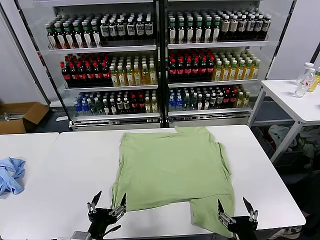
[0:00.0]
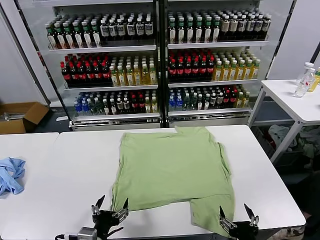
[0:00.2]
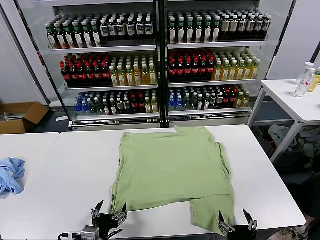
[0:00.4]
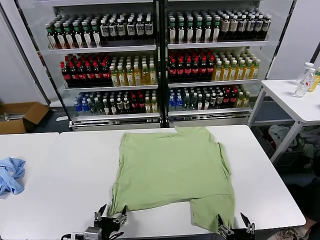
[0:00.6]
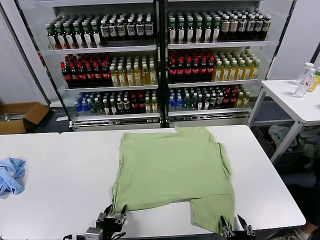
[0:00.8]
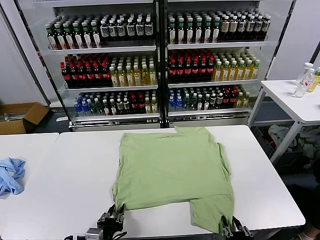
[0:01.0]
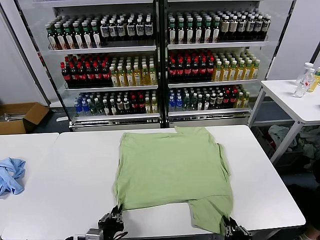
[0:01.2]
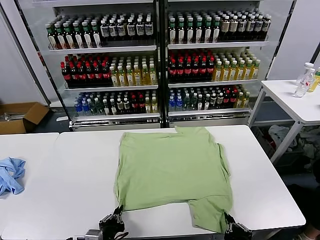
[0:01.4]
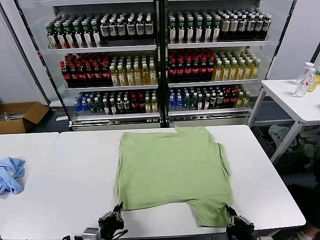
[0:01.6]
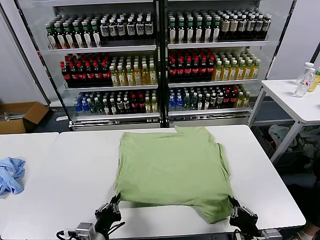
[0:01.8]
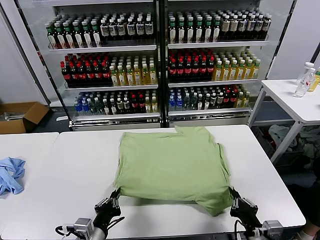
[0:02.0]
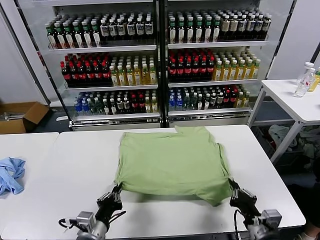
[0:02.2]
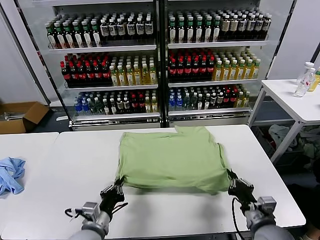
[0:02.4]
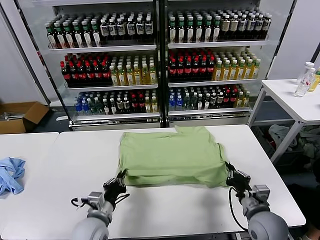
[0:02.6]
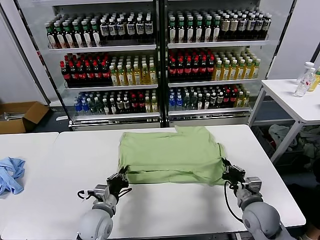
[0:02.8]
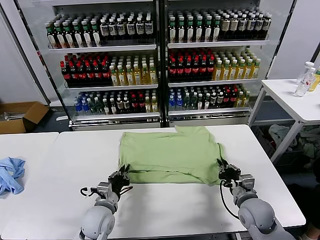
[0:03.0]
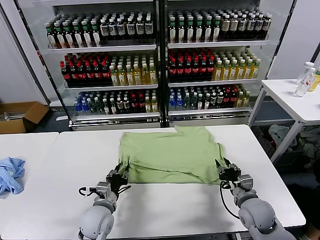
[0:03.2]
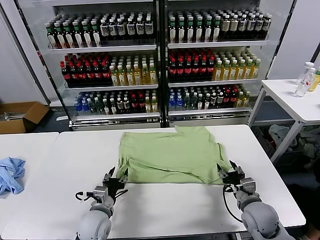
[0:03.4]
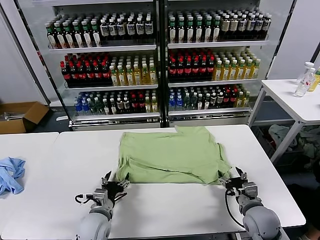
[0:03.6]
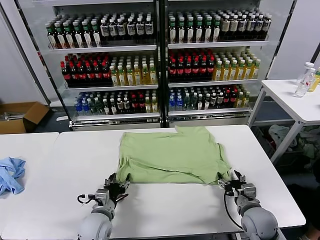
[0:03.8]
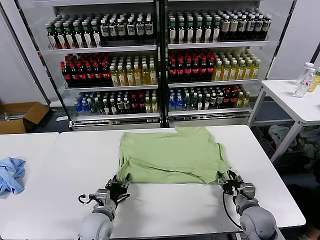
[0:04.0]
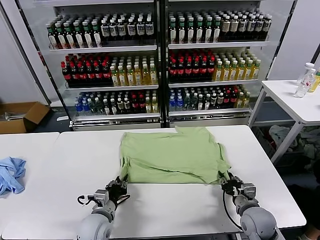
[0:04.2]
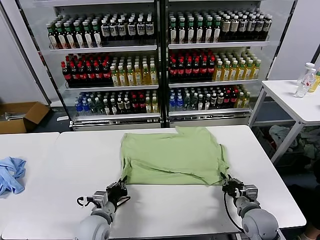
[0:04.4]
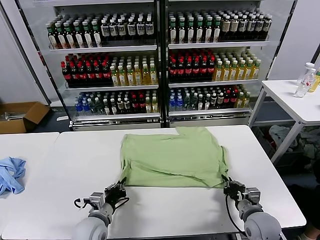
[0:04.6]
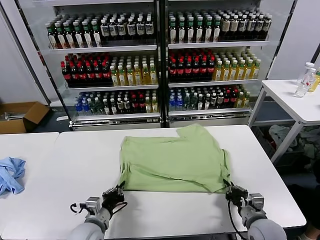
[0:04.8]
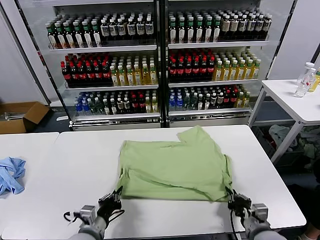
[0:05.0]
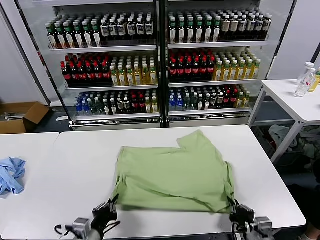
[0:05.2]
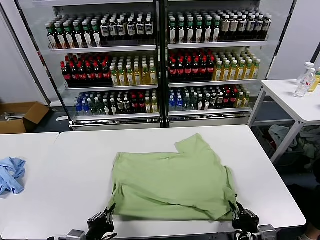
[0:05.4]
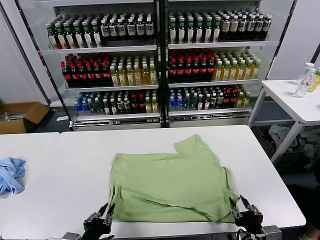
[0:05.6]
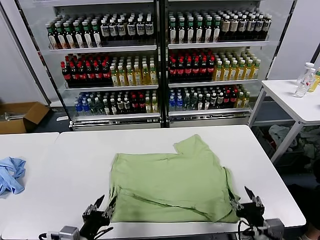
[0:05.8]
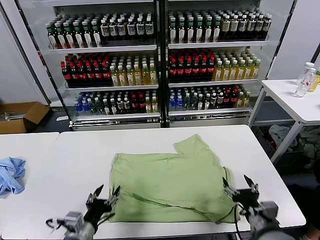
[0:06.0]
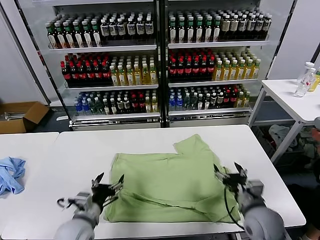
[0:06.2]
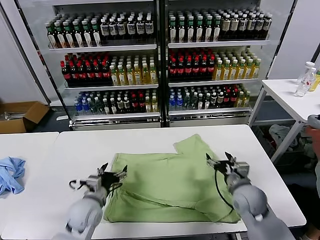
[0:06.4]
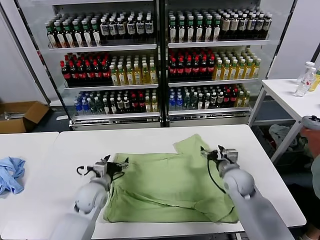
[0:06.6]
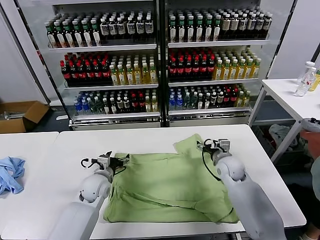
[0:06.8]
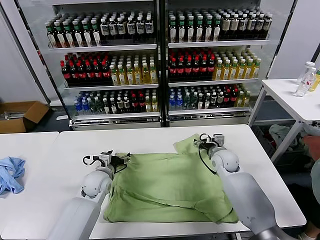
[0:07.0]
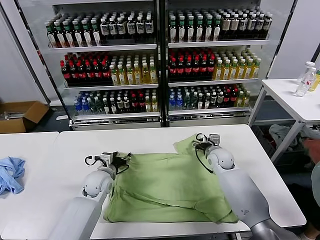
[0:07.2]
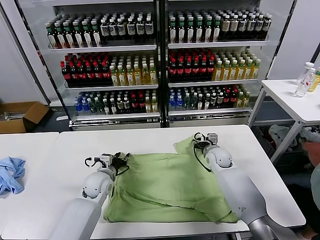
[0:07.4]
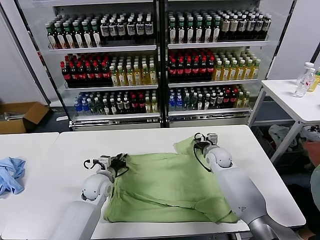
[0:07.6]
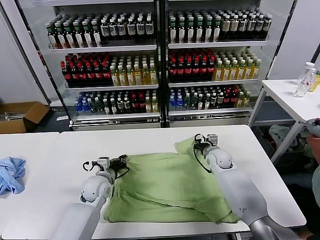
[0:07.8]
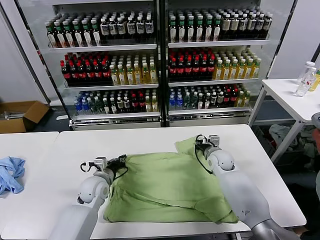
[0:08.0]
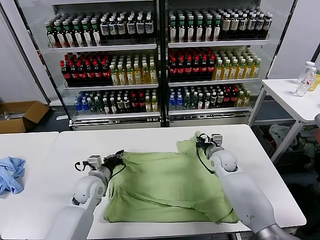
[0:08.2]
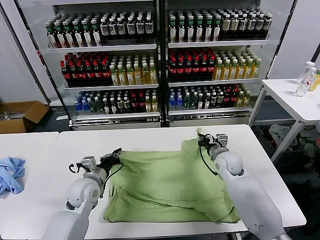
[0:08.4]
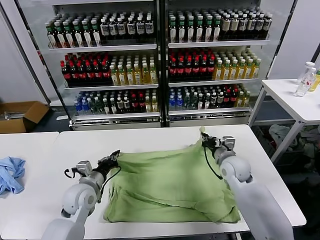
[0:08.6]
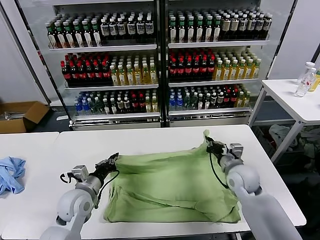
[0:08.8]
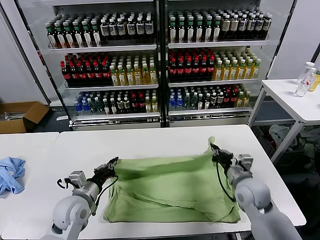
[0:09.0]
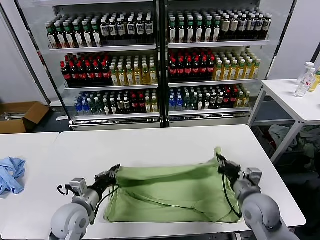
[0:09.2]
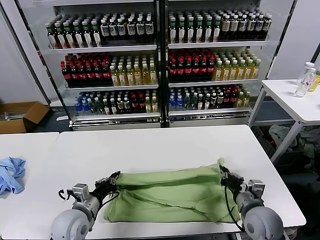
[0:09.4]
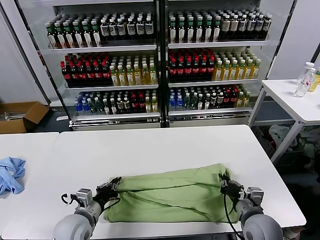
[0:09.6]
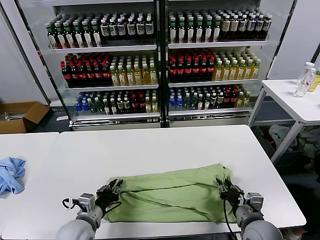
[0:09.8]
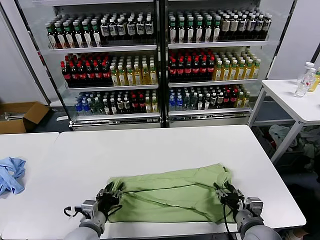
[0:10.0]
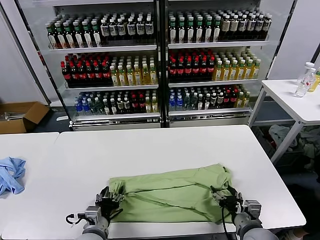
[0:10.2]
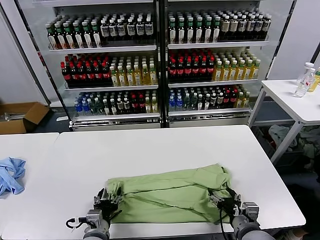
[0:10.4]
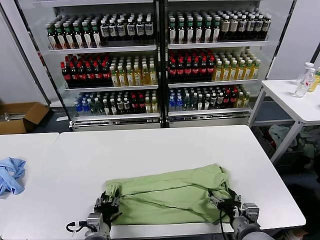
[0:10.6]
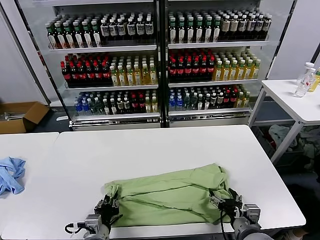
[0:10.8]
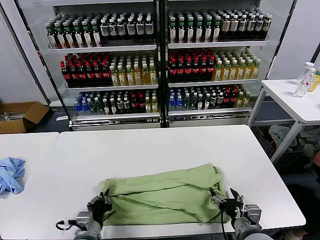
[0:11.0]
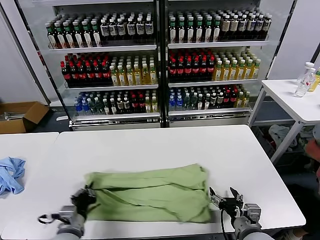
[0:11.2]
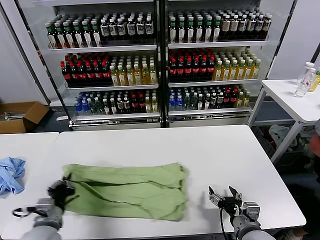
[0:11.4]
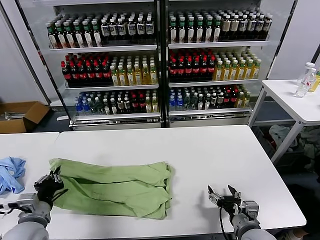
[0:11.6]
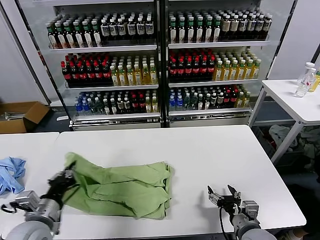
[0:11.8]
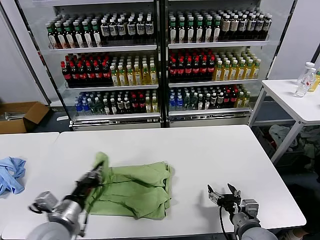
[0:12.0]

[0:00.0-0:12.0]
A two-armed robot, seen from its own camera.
Task of the whole recording: fold and organize the clothes.
Step, 0:00.0 to 0:01.4: use both grippers simultaneously to clamp the lower edge of the clothing fabric.
Step, 0:01.6 to 0:03.2: use both grippers to drag the lower edge of the fabric forward and fold it over the upper edge.
Step, 0:03.4 to 0:05.6: Drag the clothes downward with both gripper.
Step, 0:05.8 to 0:07.8: use both grippers simultaneously to clamp the upper edge of the clothing fabric.
Step, 0:08.0 to 0:09.8: use both grippers to drag the upper edge of the fabric backward and fold it over the lower edge.
Step, 0:10.0 to 0:10.8: use the left gripper to clamp the left edge of the fabric.
0:01.6 to 0:03.0: The two grippers go approximately 15 cm forward. The right gripper opens its fingers.
0:03.0 to 0:04.4: The right gripper closes its fingers, while the left gripper opens and closes again.
0:04.4 to 0:06.0: The left gripper moves backward and upward, about 10 cm, and opens up. Meanwhile the right gripper shifts roughly 5 cm upward, reaches approximately 15 cm backward, then returns, and opens up.
0:06.0 to 0:07.6: The grippers both shift forward by about 25 cm. The left gripper closes its fingers. Meanwhile the right gripper closes.
0:07.6 to 0:09.0: The left gripper moves backward and upward, about 10 cm. Meanwhile the right gripper shifts approximately 20 cm backward.
0:09.0 to 0:10.4: The left gripper goes about 15 cm backward, downward and to the right, and opens, while the right gripper travels backward by some 10 cm, and opens up.
0:10.4 to 0:12.0: The left gripper travels upward and to the left by approximately 15 cm, and closes.

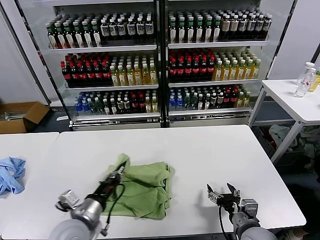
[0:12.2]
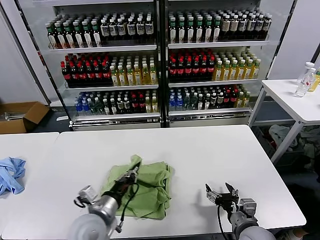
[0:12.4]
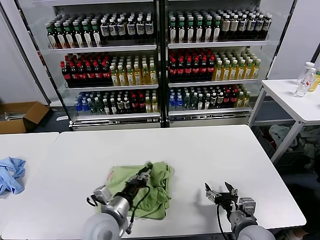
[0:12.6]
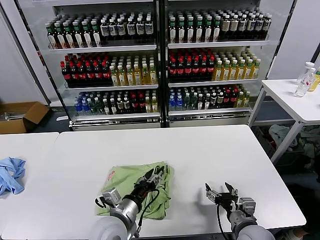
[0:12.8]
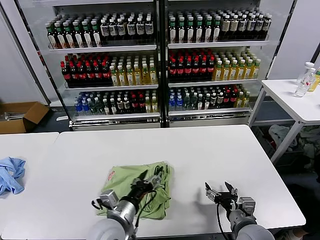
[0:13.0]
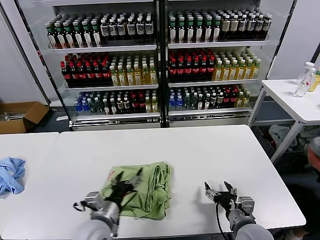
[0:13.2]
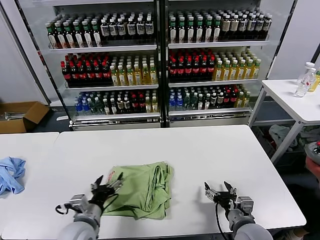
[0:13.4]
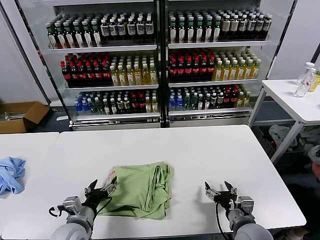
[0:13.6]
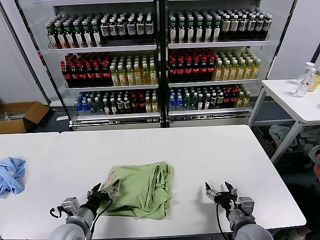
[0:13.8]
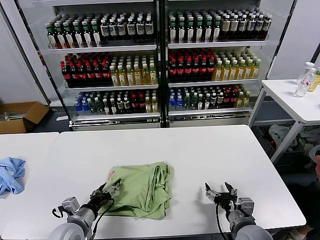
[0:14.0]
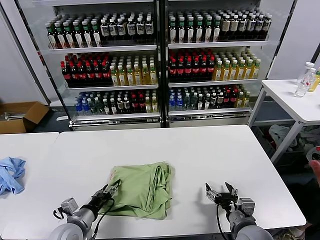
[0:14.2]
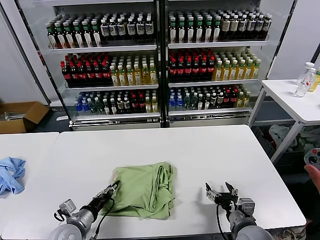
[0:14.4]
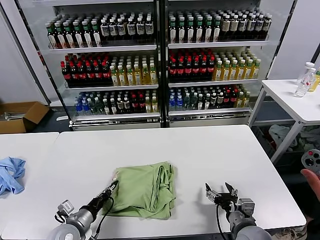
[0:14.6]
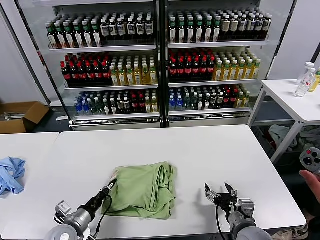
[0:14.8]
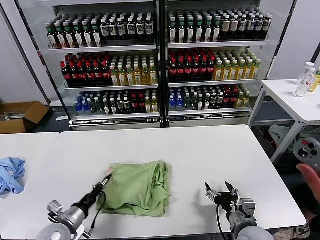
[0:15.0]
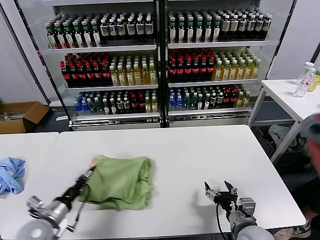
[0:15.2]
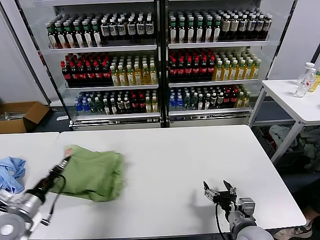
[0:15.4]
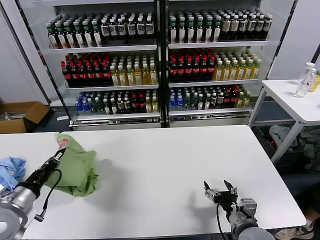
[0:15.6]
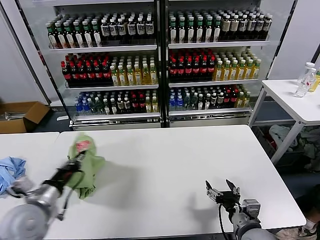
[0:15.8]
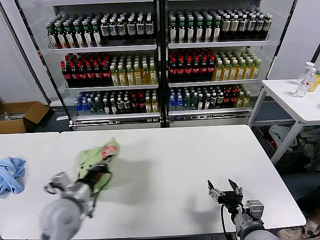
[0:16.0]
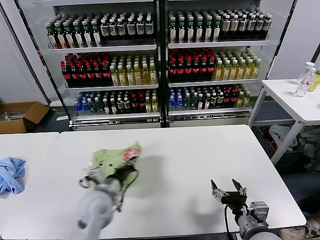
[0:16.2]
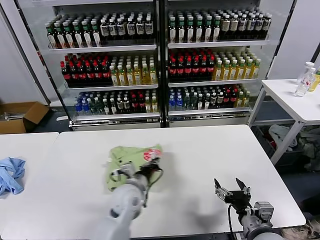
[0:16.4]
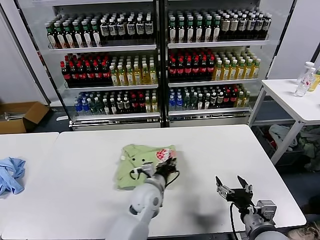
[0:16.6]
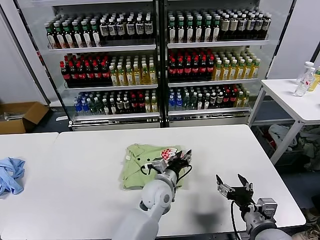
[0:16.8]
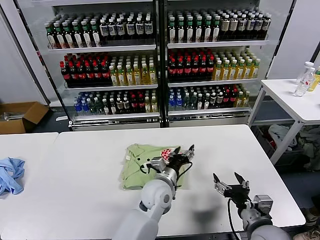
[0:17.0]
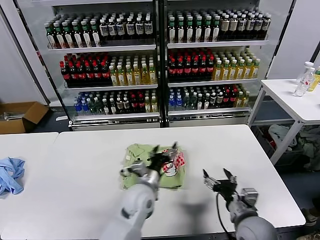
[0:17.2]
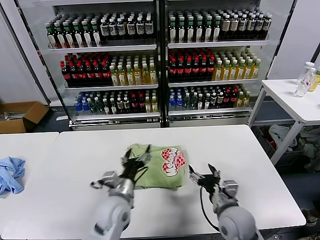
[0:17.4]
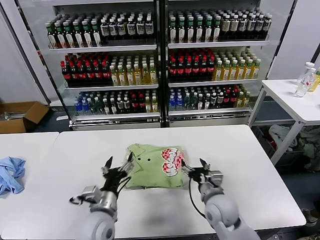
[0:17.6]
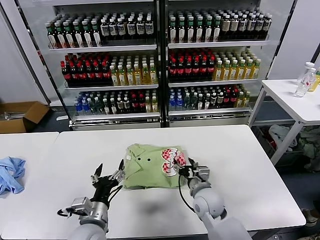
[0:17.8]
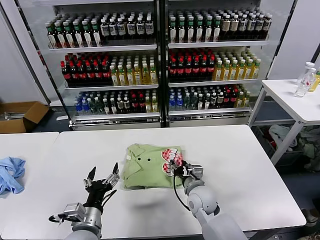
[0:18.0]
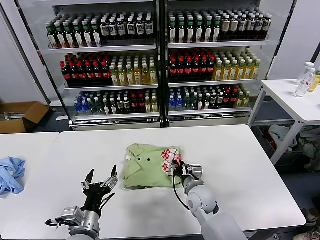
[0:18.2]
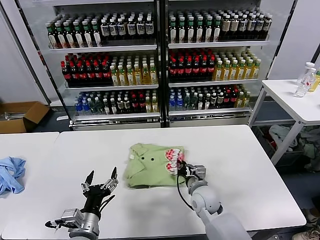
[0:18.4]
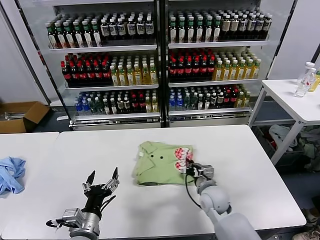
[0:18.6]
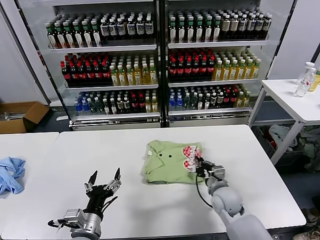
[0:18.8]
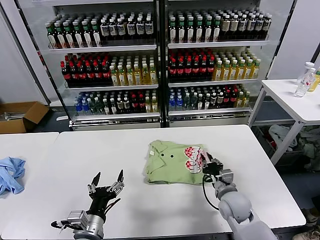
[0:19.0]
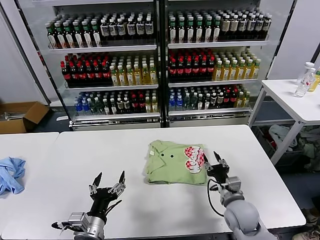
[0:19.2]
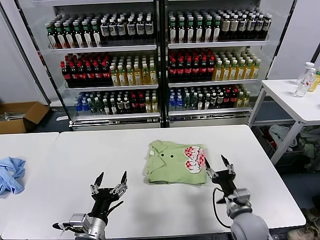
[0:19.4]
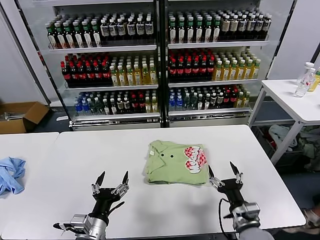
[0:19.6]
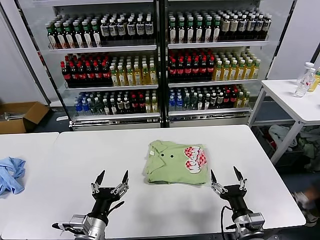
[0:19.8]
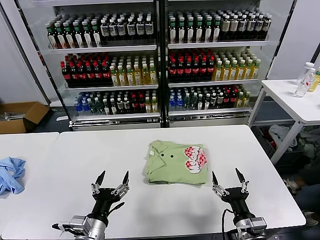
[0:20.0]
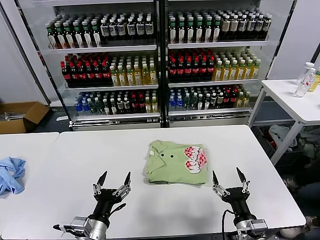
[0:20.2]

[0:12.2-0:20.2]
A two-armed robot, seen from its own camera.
Task of the whole recording: fold and organize the clothes.
Step, 0:13.0 to 0:16.6: Flip the folded clothes over with left gripper.
Step, 0:17.0 to 0:19.0: Drag the clothes to the center of the table.
0:12.2 to 0:13.8: The left gripper goes some 10 cm downward, moves roughly 10 cm to the right and comes back, and opens.
0:13.8 to 0:15.4: The left gripper travels to the left and upward by some 15 cm, and closes.
0:15.4 to 0:17.0: The left gripper travels to the right by some 40 cm, and opens.
0:17.0 to 0:18.6: The left gripper shifts about 25 cm to the left and backward. Meanwhile the right gripper shifts roughly 20 cm forward, to the left and downward, and closes up.
0:18.6 to 0:20.2: The right gripper shifts roughly 20 cm backward and to the right, and opens up.

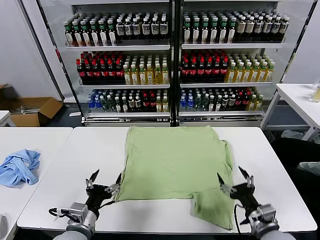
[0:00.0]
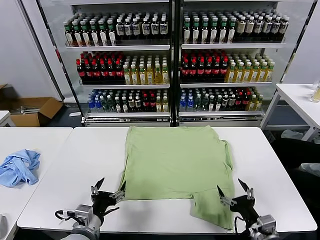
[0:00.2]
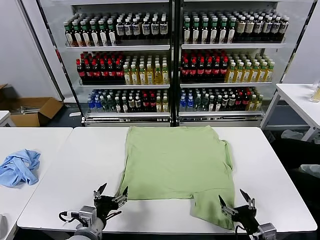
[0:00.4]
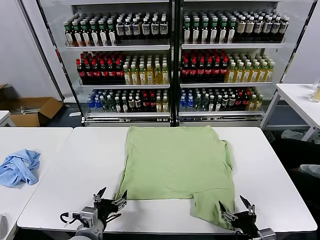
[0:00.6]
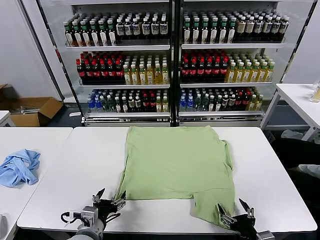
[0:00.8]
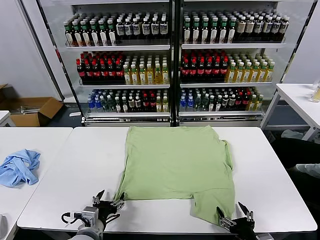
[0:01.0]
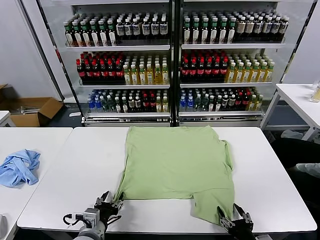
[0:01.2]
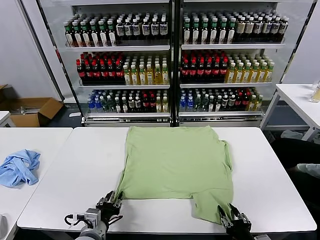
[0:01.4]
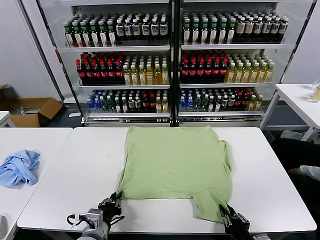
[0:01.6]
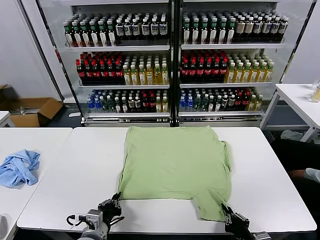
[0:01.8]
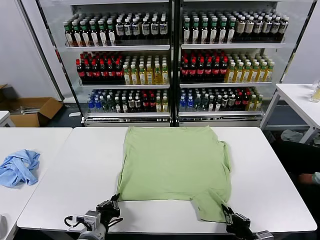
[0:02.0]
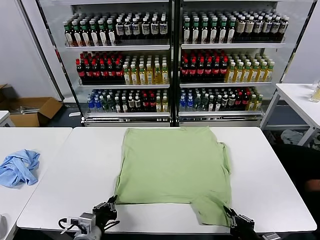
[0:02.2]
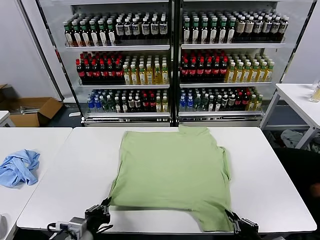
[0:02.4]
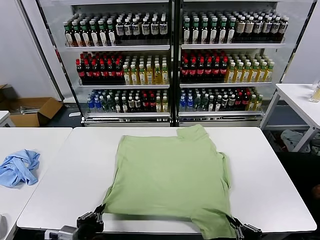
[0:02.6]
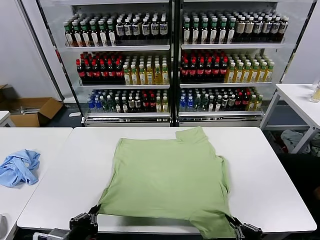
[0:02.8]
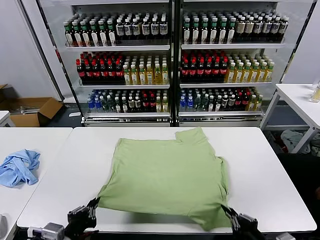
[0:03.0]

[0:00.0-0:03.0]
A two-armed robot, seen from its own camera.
Task of the whole recording: fold and organize the clothes.
Step, 0:00.0 to 0:02.2: use both grippers simultaneously to clamp the lower edge of the clothing fabric.
0:01.6 to 0:03.0: The left gripper shifts roughly 15 cm upward and backward. Meanwhile the right gripper heads upward, covering approximately 10 cm.
